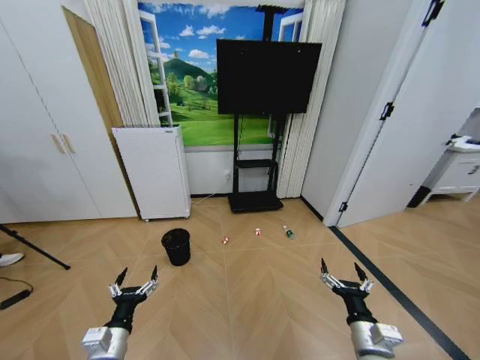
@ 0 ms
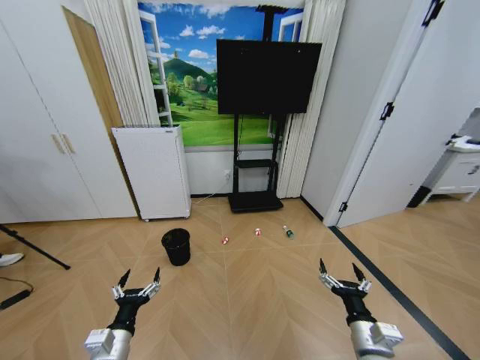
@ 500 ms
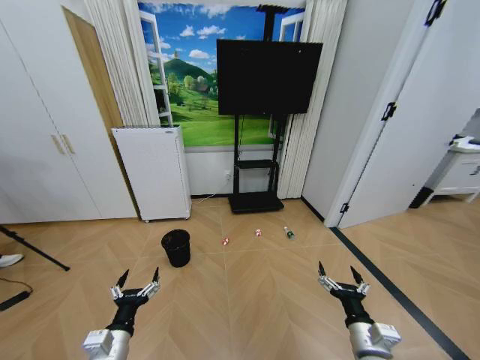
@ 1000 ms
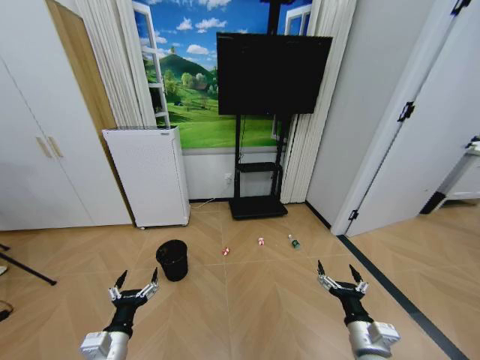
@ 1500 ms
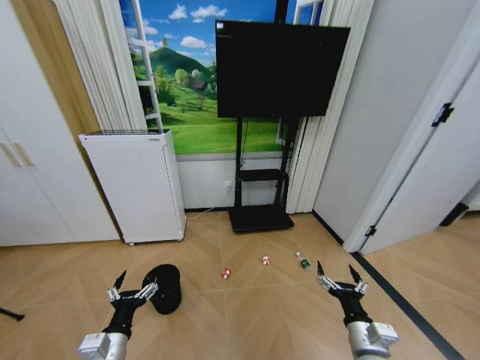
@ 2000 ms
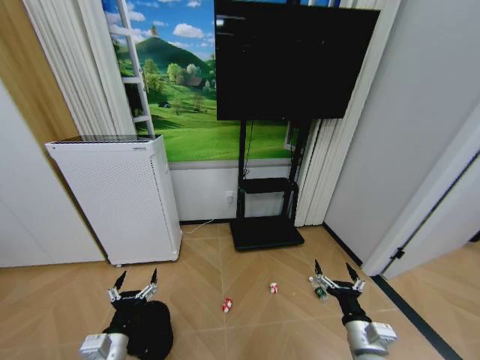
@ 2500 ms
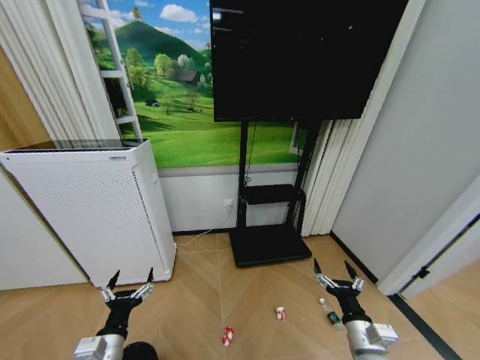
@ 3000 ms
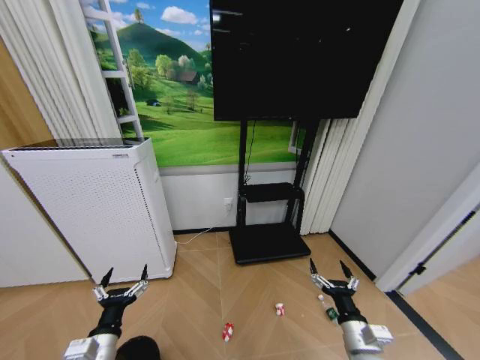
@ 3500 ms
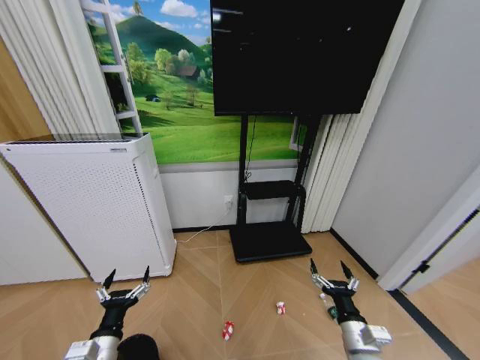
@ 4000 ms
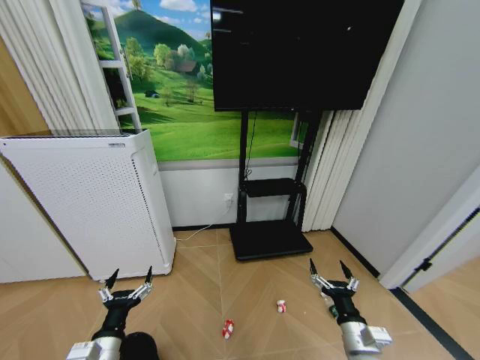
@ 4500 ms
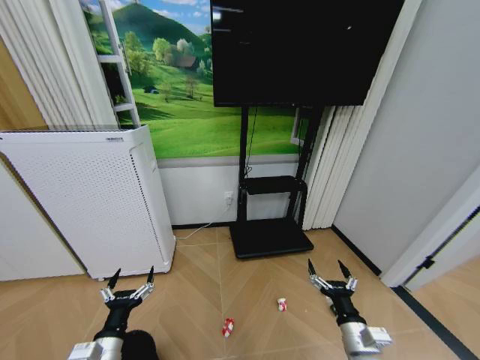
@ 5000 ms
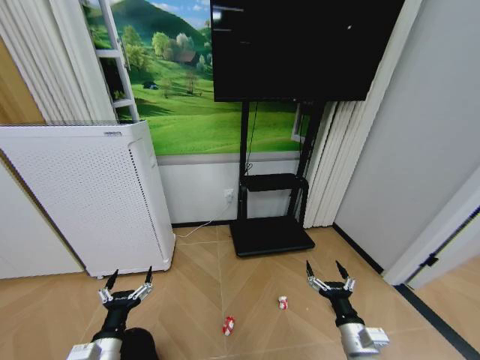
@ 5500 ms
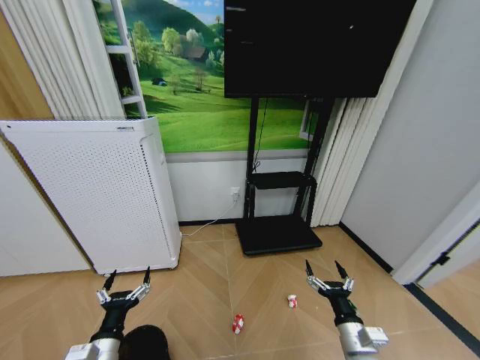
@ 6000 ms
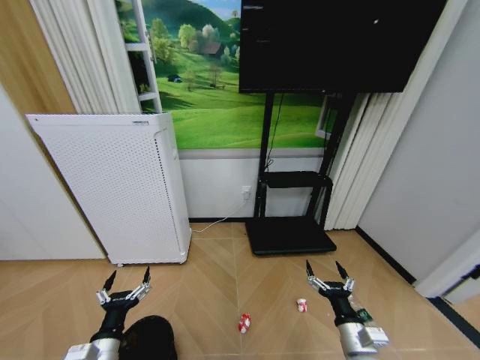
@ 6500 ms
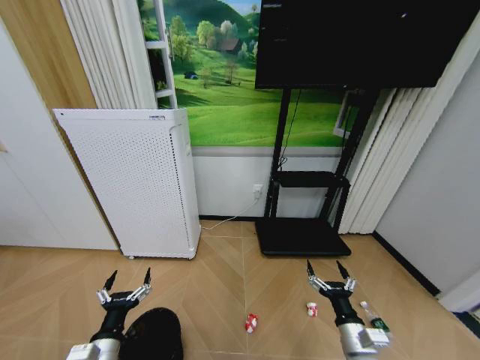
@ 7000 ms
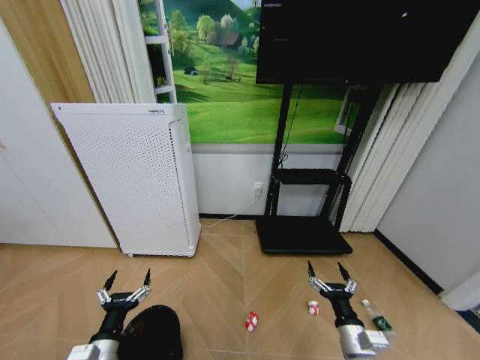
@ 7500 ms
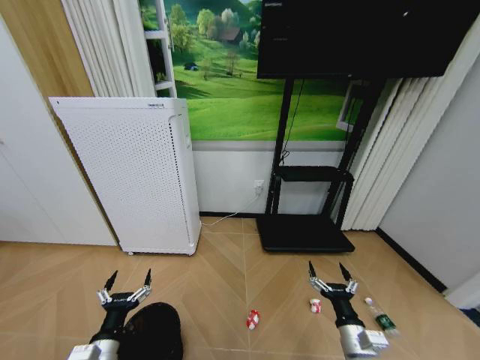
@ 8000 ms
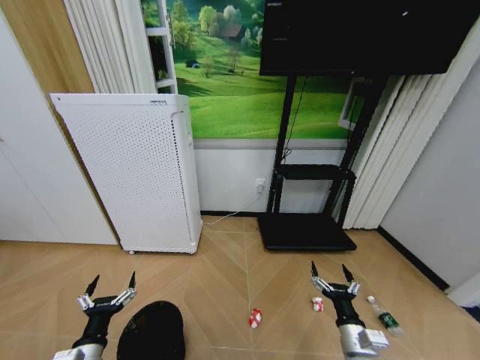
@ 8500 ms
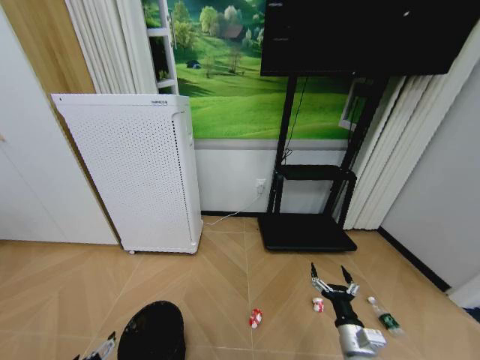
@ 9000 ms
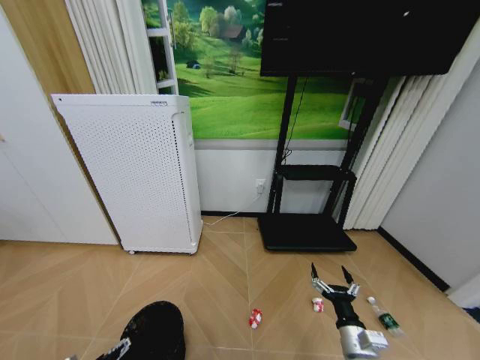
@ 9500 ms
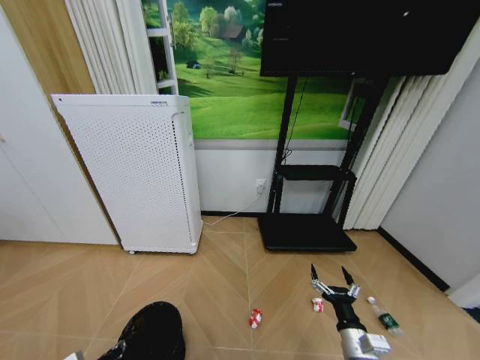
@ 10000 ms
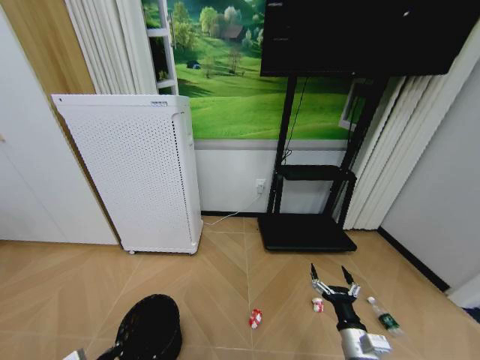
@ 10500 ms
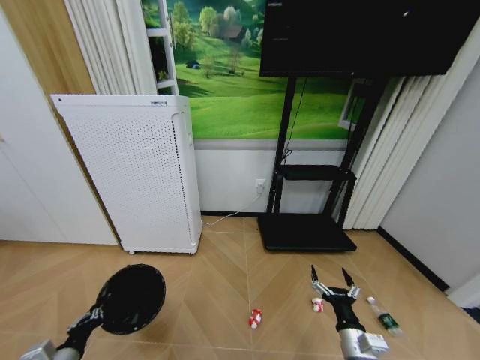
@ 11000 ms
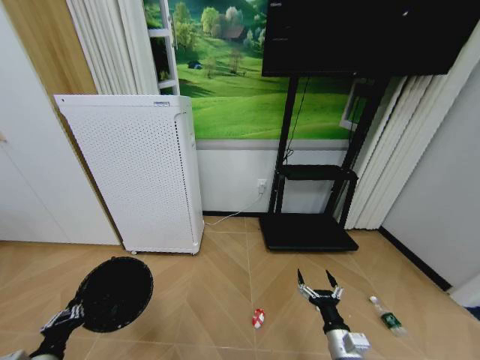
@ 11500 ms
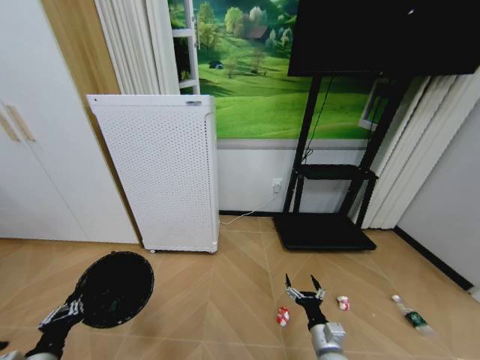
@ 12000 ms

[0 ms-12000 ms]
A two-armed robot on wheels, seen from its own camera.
Task of the whole recording: Pick up the trash bin and place the garbage on the floor into it.
8000 ms to 10000 ms: The left gripper goes some 10 cm to the left and downward, and closes up.
10000 ms to 12000 ms: The right gripper shifts about 5 cm downward; the left gripper goes approximately 10 cm upward.

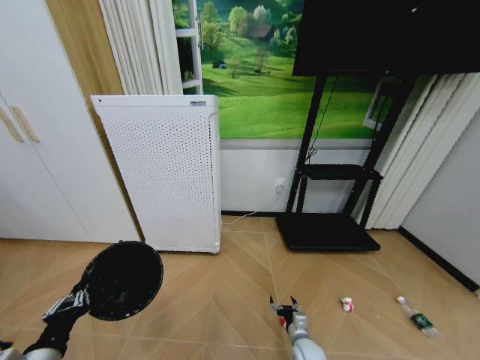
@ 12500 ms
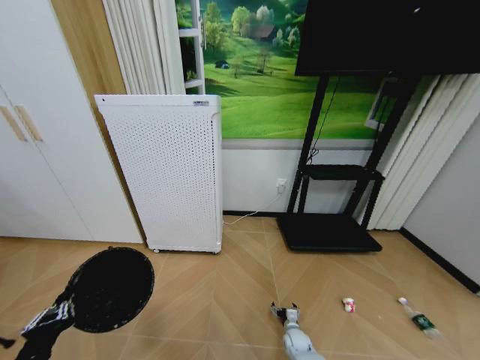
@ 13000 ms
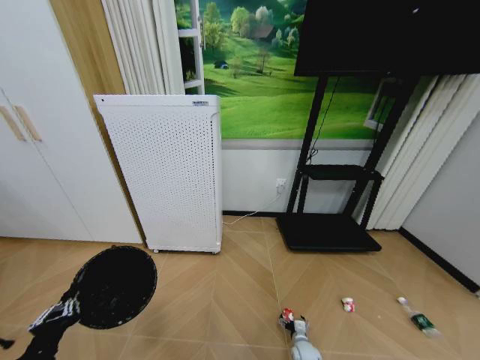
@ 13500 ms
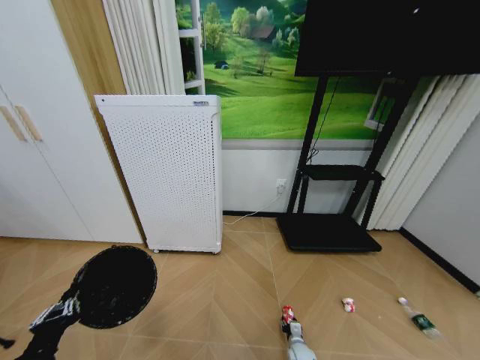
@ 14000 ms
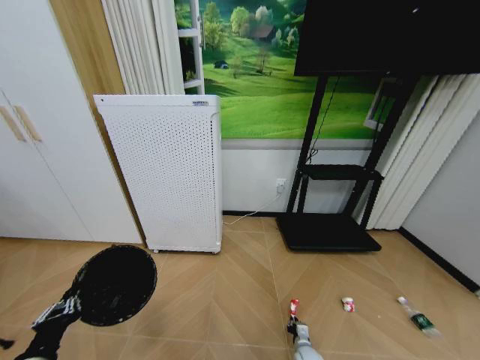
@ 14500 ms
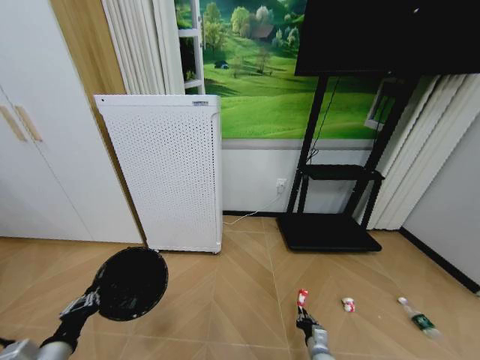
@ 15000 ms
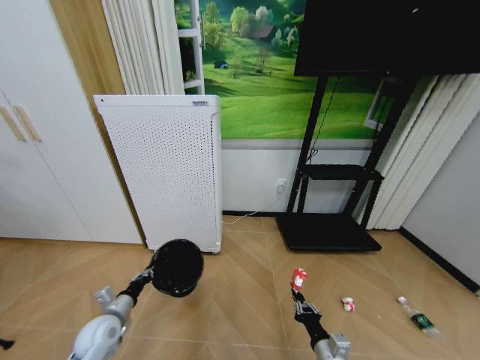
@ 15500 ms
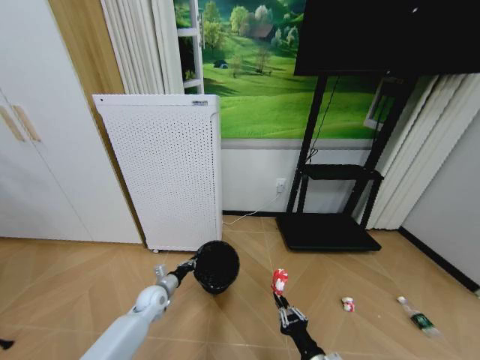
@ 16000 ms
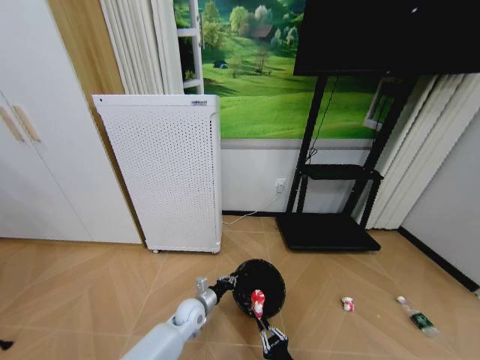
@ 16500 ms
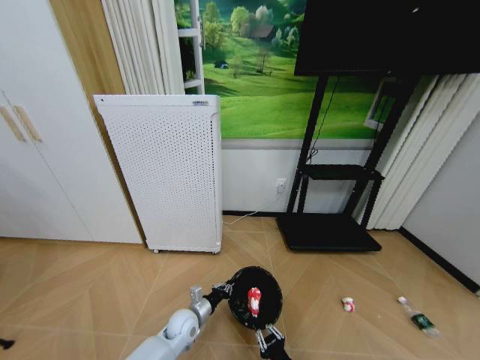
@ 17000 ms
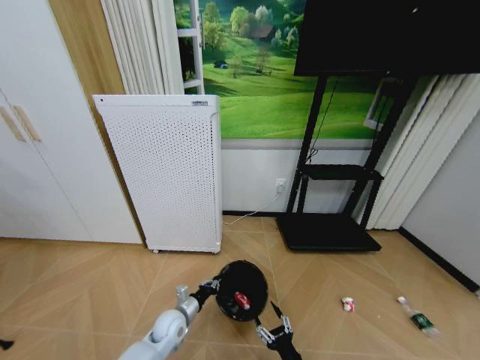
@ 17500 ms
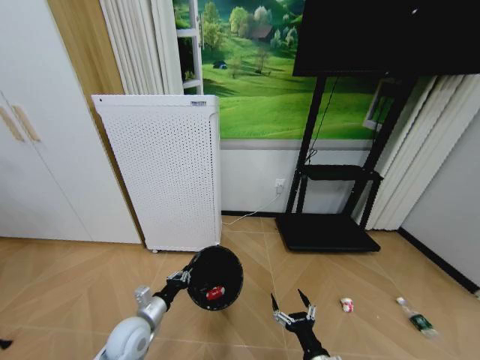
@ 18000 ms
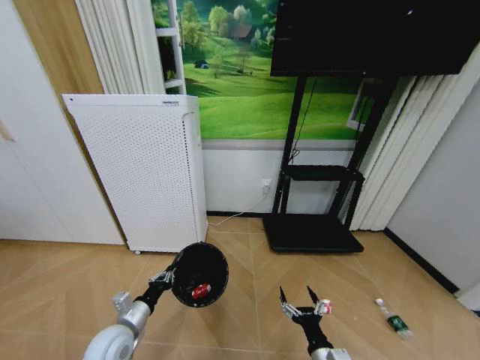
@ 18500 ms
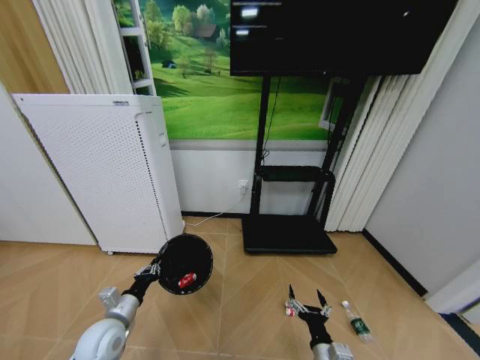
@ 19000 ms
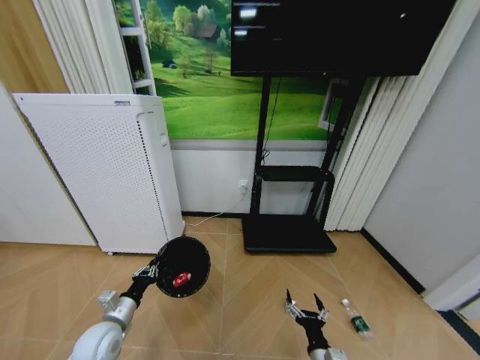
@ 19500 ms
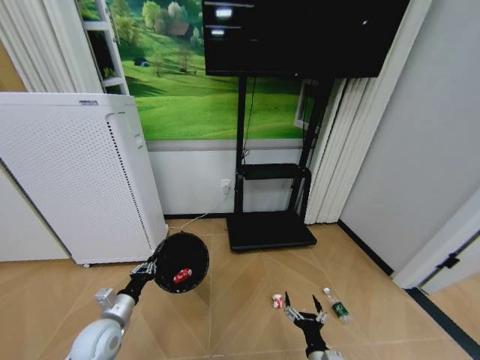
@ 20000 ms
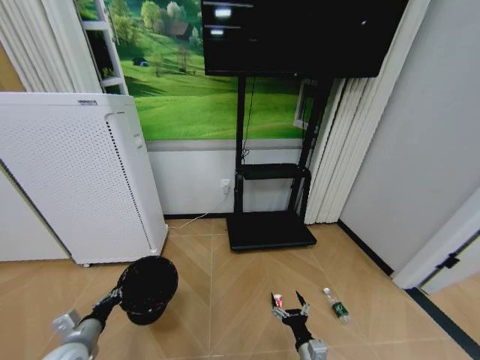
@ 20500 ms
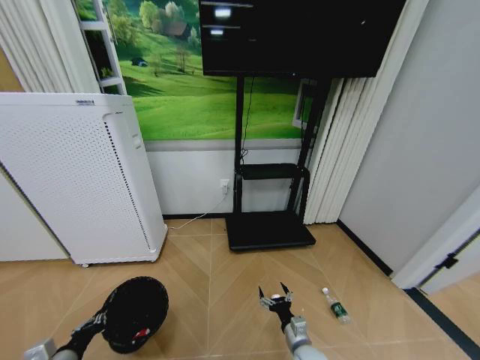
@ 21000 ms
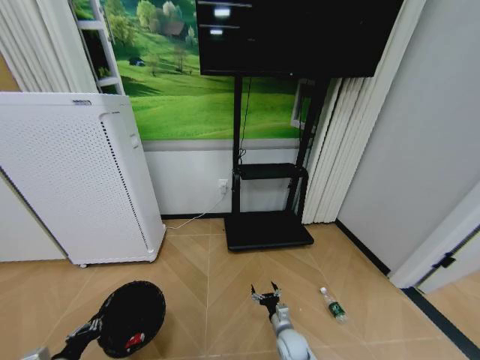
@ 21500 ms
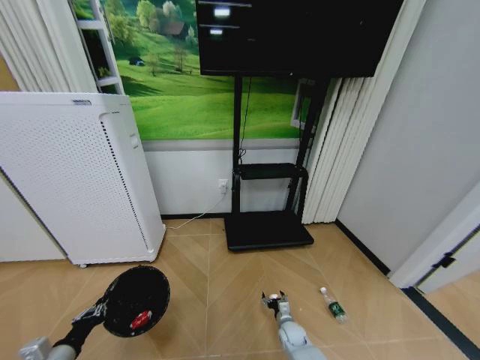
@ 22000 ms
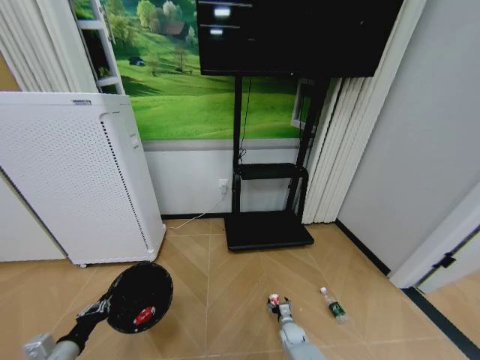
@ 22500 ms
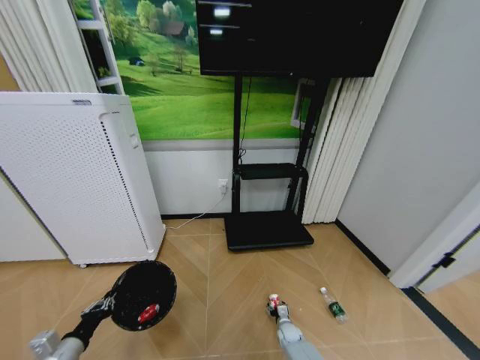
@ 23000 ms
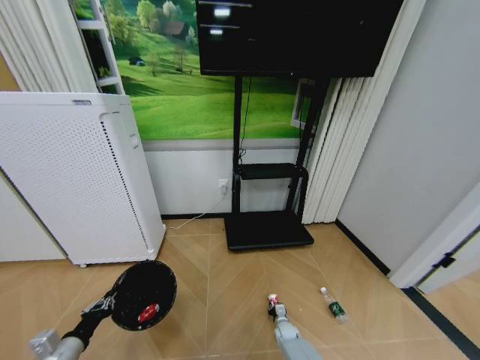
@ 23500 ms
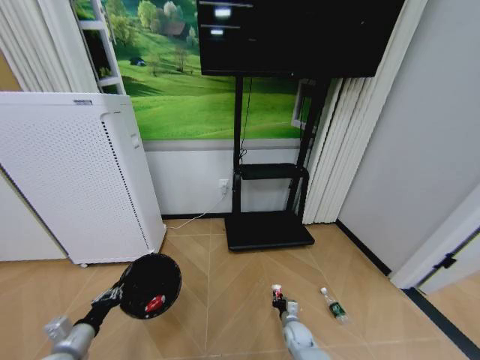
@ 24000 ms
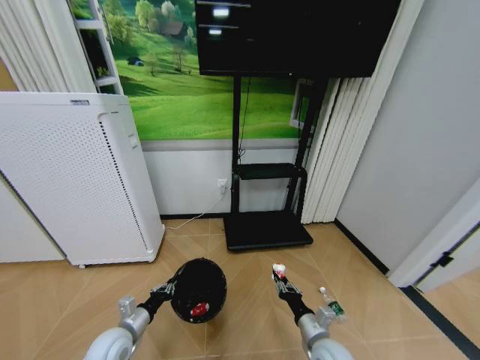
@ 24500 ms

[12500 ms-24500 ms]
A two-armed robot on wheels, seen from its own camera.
Task of the whole recording: Pick up the trash bin and place the garbage on the floor into it.
12500 ms to 14500 ms: The right gripper is displaced downward by roughly 10 cm, and closes.
14500 ms to 16500 ms: The left gripper goes approximately 40 cm to the right, forward and downward, while the right gripper shifts some 25 cm upward and backward.
16500 ms to 18500 ms: The right gripper ends up roughly 5 cm from where it was, and opens its fingers, while the left gripper is displaced to the left, upward and backward by about 20 cm.
18500 ms to 20500 ms: The left gripper moves to the left, about 10 cm, while the right gripper is displaced downward by about 5 cm.
20500 ms to 22500 ms: The left gripper travels backward by about 5 cm. Meanwhile the right gripper goes roughly 25 cm downward and forward.
22500 ms to 24500 ms: The left gripper heads to the right and forward, covering roughly 15 cm; the right gripper goes approximately 25 cm upward and backward, and closes its fingers.

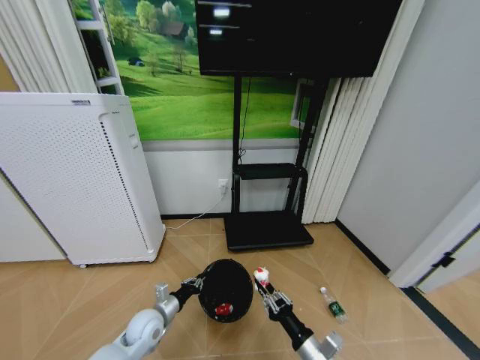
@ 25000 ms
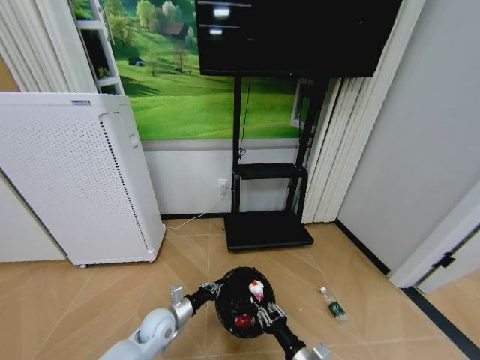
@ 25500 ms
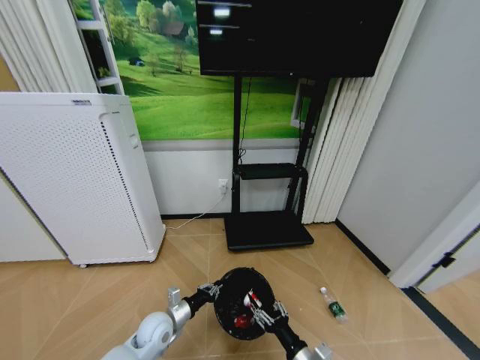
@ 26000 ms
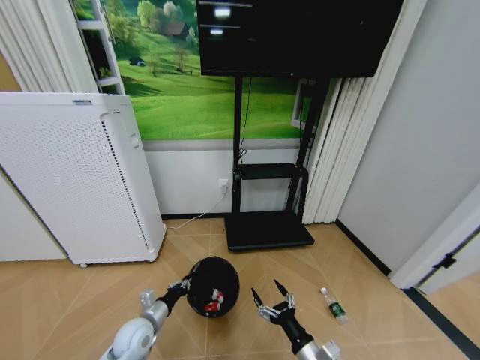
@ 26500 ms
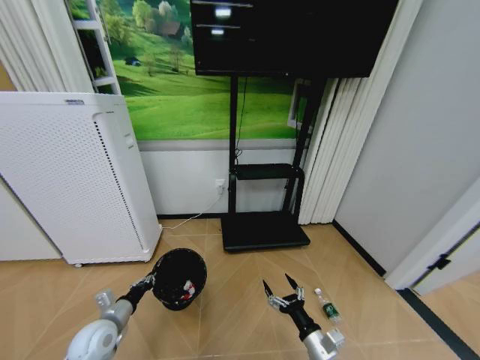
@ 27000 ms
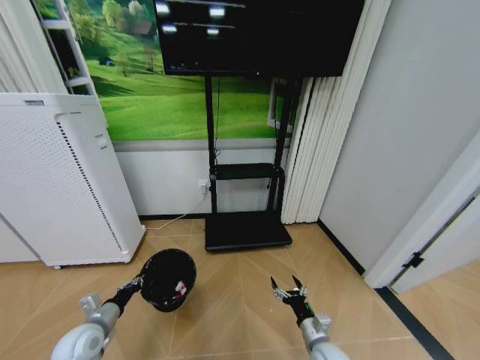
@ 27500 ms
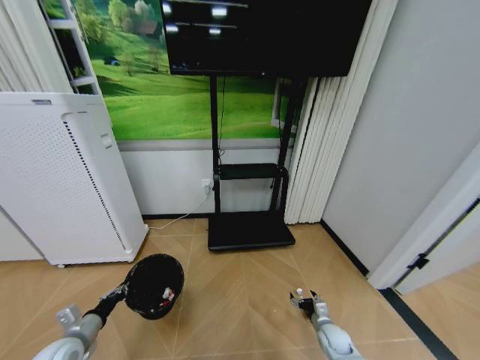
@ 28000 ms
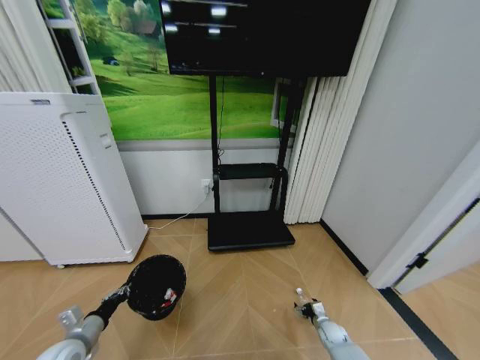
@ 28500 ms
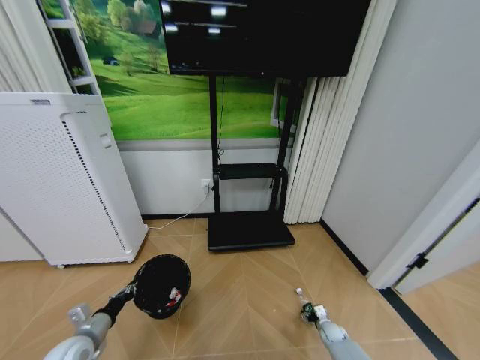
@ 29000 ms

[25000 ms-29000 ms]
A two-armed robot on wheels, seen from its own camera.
Task of the whole recording: Pick up the trash bin and place the garbage on the floor into it.
25000 ms to 27000 ms: The right gripper opens its fingers. Meanwhile the left gripper travels to the left by approximately 5 cm.
27000 ms to 29000 ms: The right gripper is displaced downward, to the right and forward by roughly 30 cm; the left gripper ends up about 5 cm from where it was.
